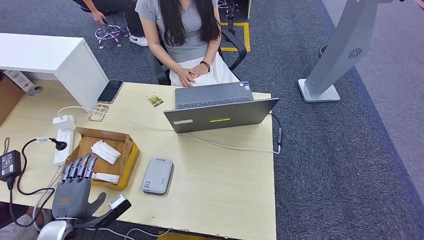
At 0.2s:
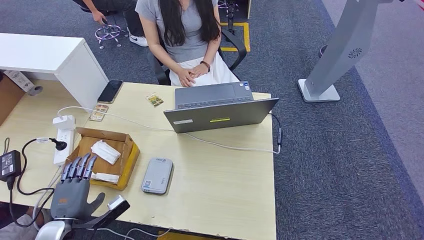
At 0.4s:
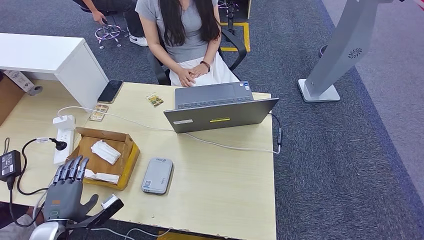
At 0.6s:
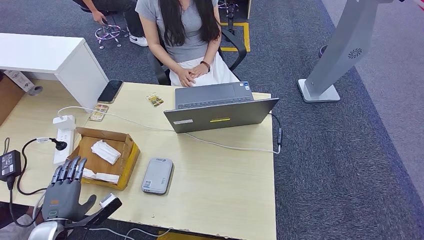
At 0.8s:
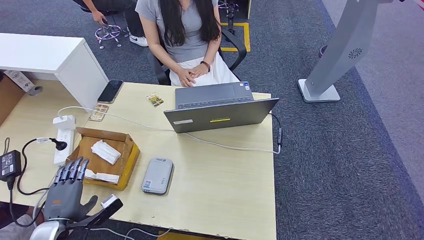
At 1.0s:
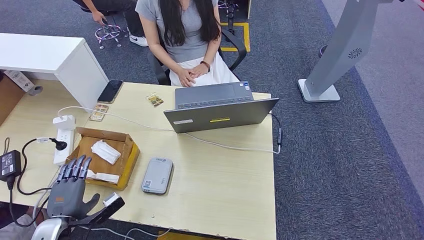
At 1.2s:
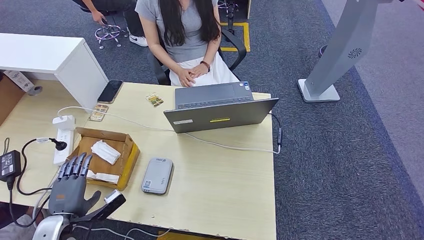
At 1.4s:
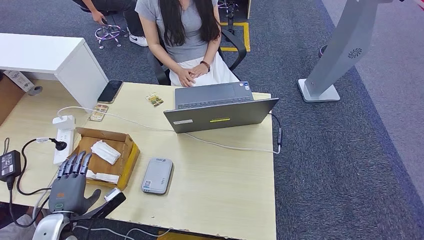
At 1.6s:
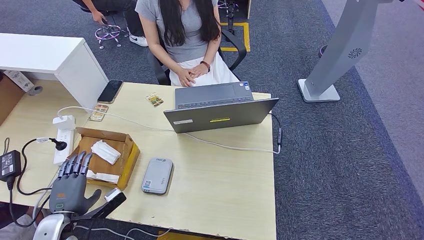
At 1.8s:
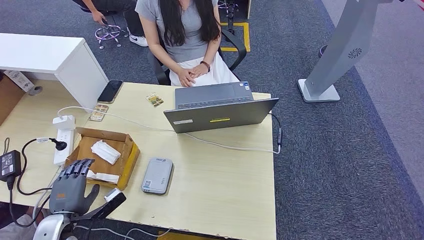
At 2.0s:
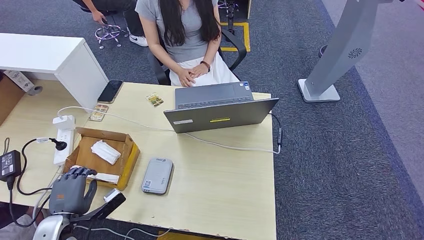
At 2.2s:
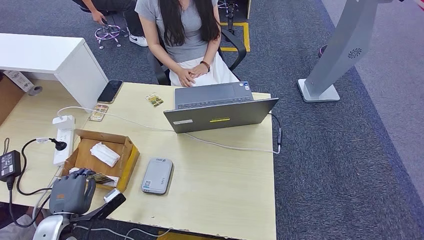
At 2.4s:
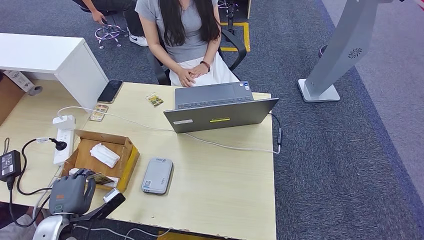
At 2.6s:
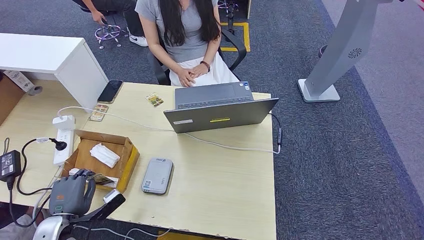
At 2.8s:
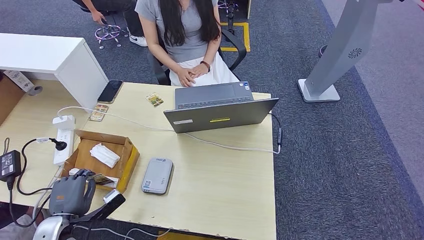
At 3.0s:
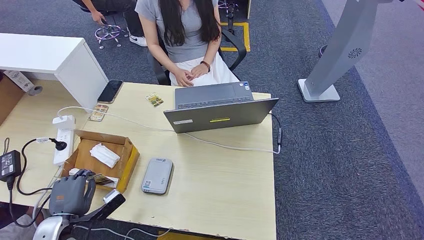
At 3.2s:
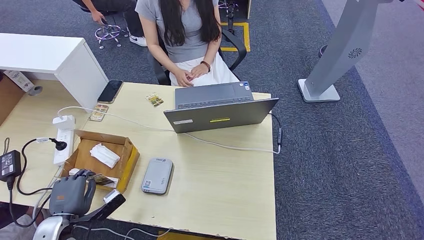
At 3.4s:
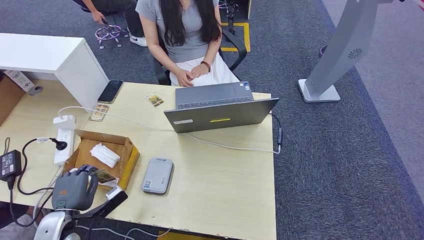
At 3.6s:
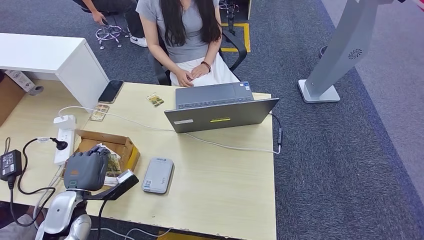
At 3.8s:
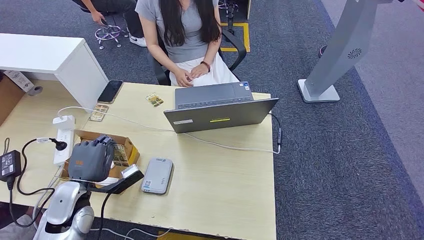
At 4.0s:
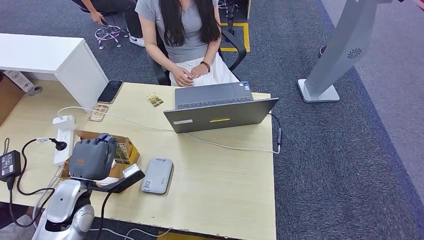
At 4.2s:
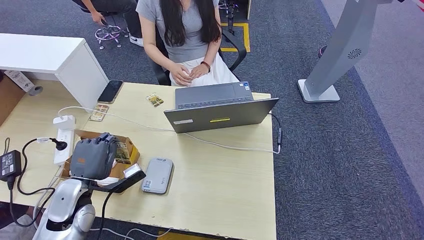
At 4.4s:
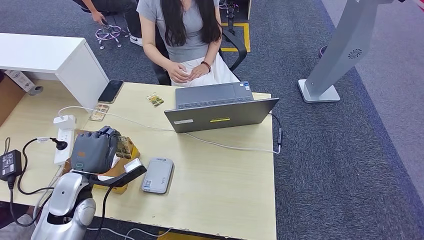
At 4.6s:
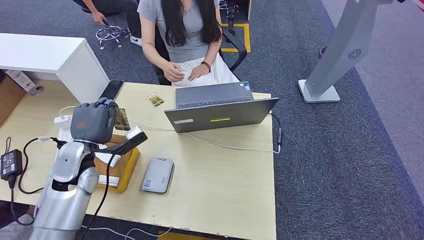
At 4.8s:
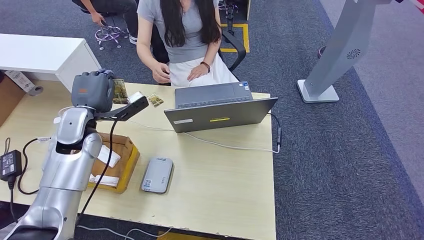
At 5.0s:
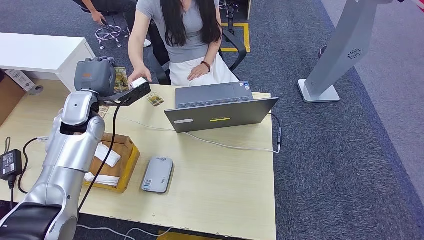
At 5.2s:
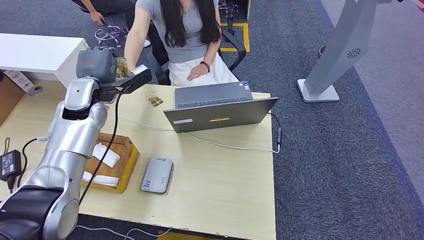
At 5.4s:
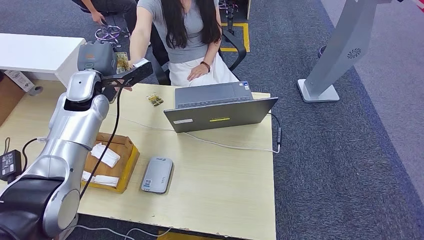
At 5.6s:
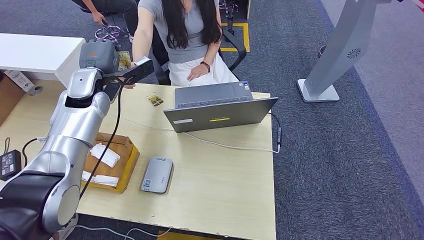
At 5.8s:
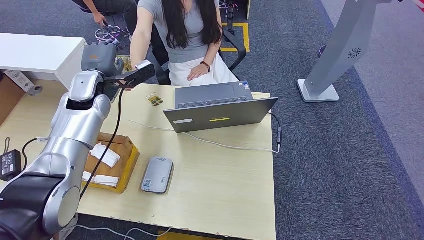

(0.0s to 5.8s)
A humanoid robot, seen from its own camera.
Step, 0.0s - 3.4s: Pick up the room key from the key card box.
Step, 3.6s - 5.8s: Hand the room key to the person.
0.0s - 1.4s: There are only small adjustments of the hands.
1.4s - 2.8s: The two hands keep their place.
2.8s - 4.4s: The left hand shifts roughly 10 cm forward and upward.
4.4s - 5.8s: The left hand travels forward and upward by approximately 25 cm.
